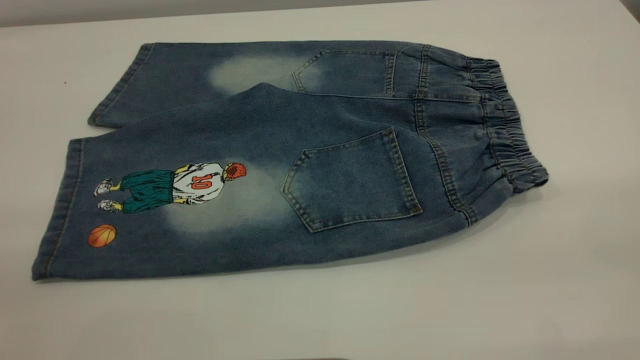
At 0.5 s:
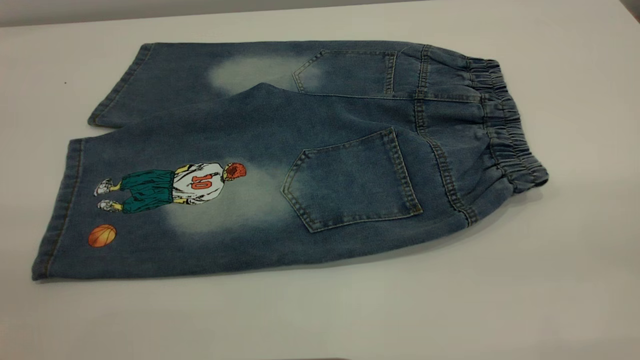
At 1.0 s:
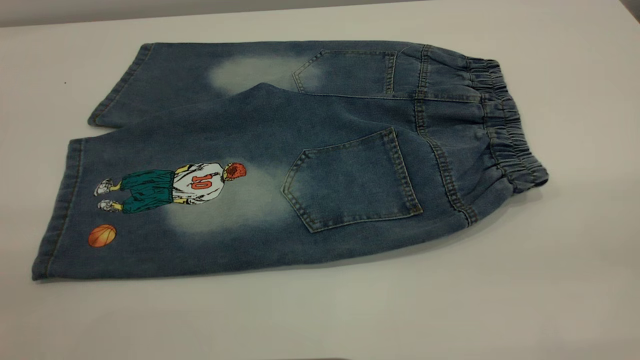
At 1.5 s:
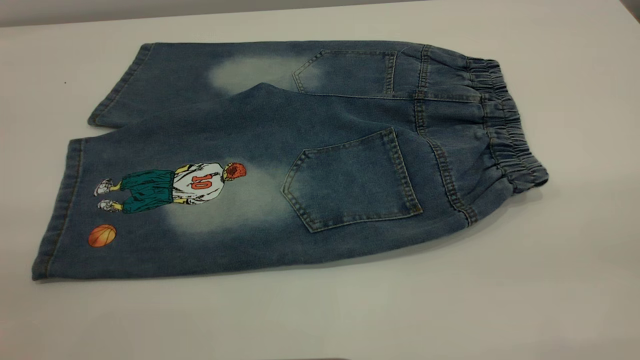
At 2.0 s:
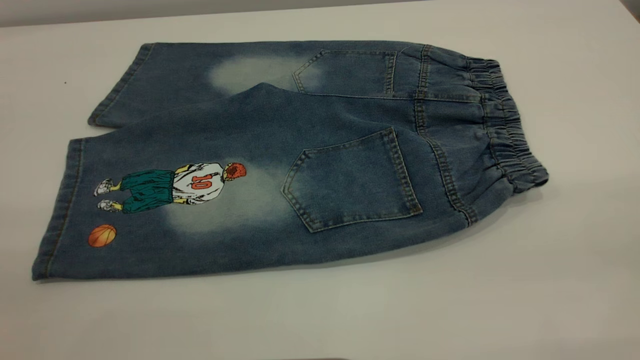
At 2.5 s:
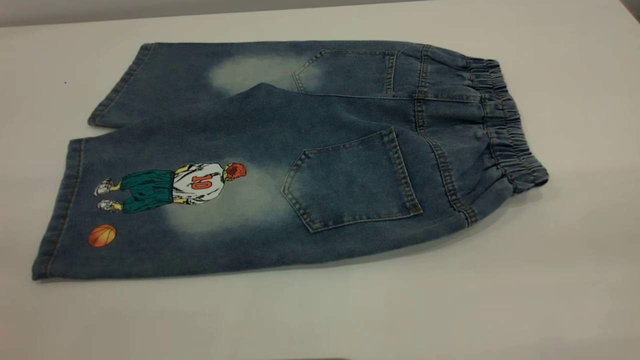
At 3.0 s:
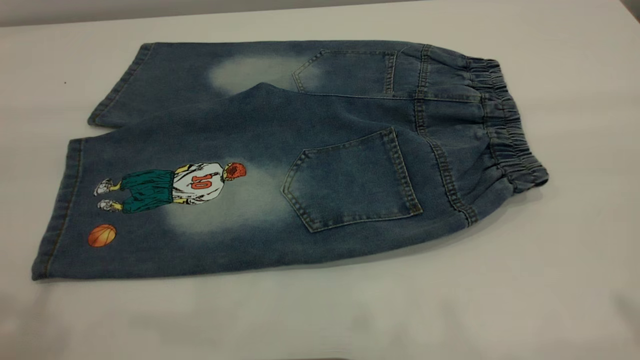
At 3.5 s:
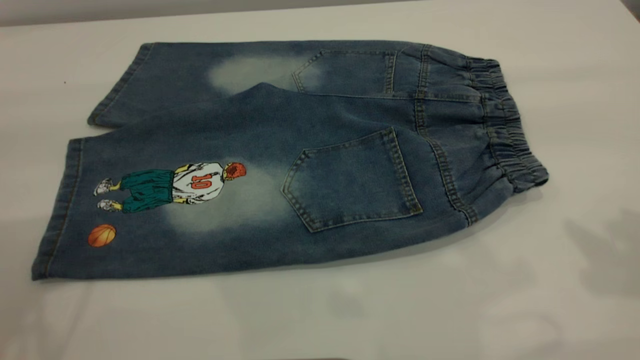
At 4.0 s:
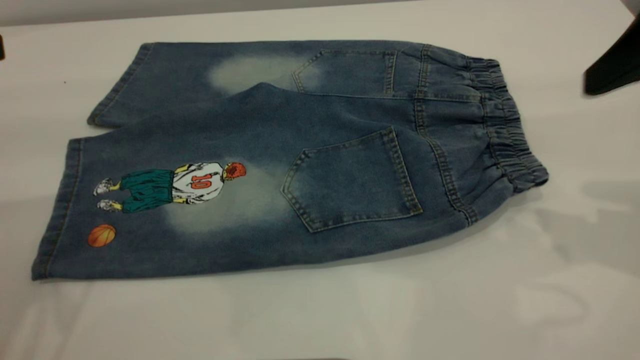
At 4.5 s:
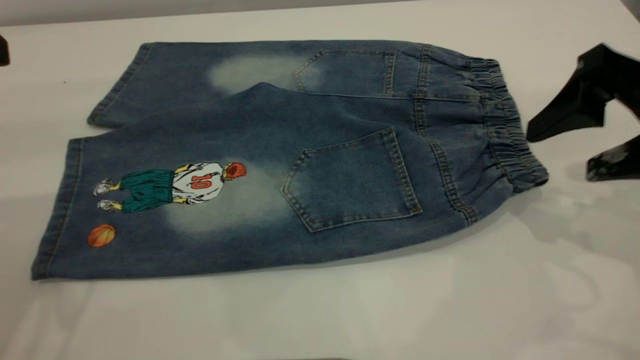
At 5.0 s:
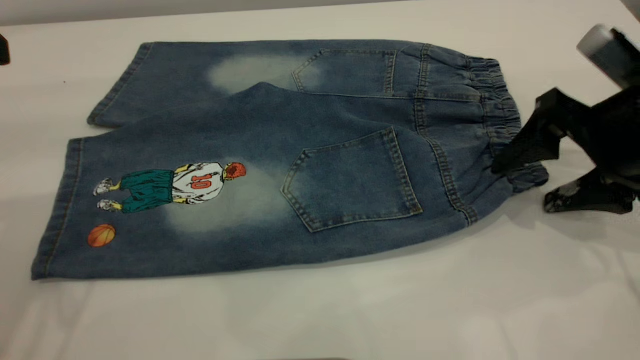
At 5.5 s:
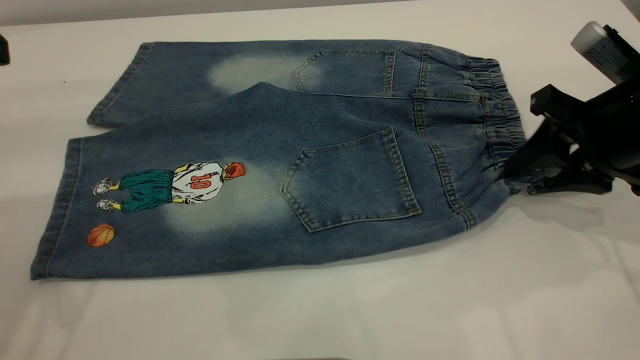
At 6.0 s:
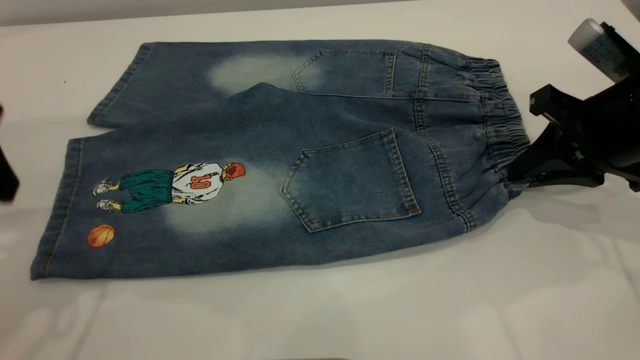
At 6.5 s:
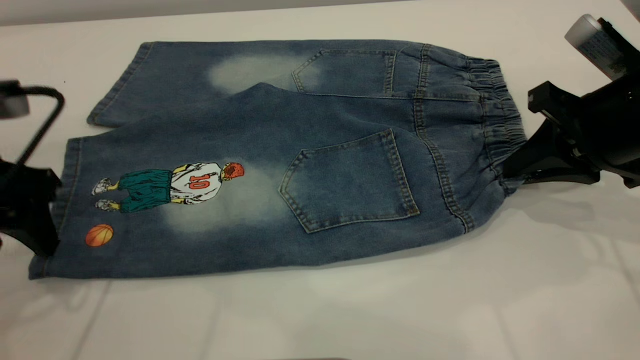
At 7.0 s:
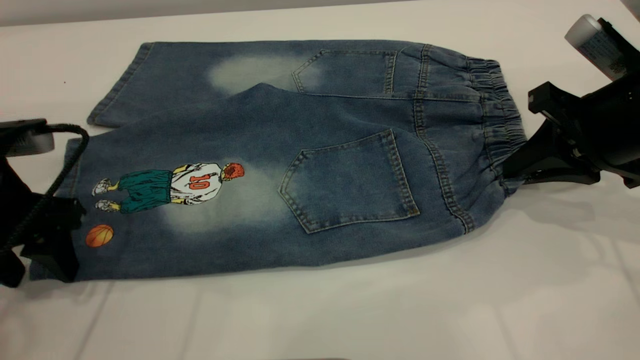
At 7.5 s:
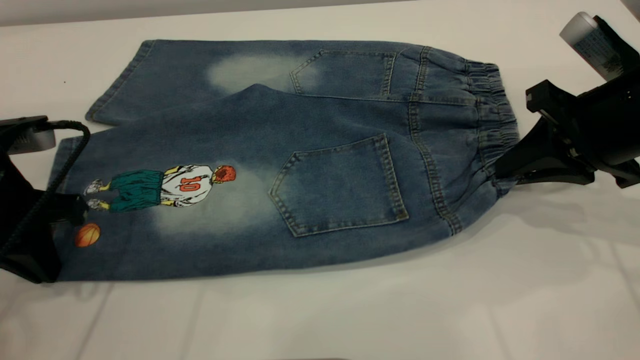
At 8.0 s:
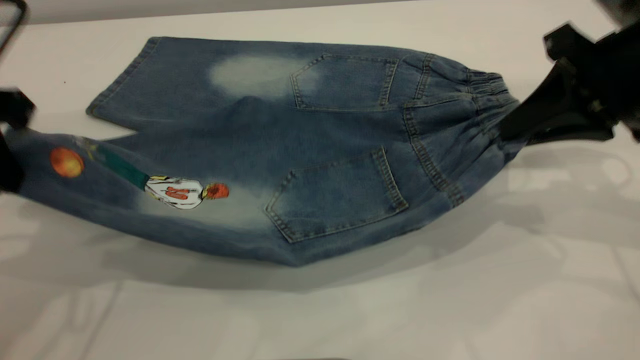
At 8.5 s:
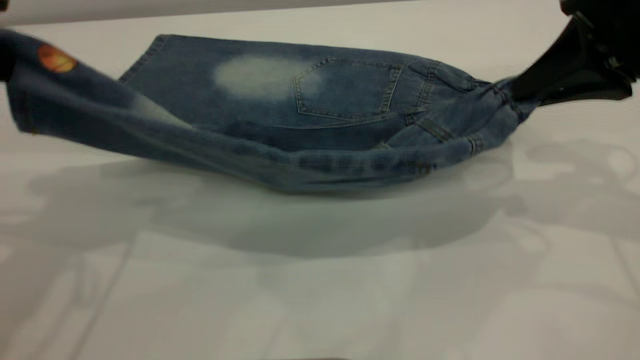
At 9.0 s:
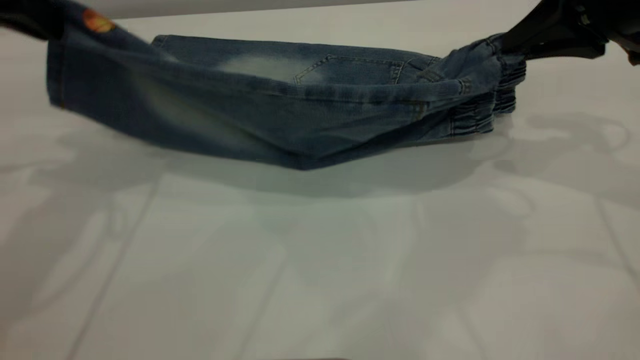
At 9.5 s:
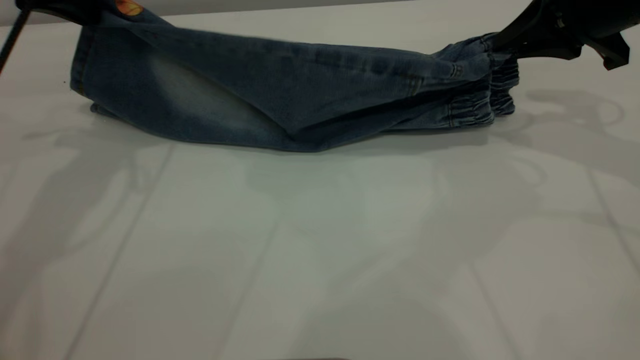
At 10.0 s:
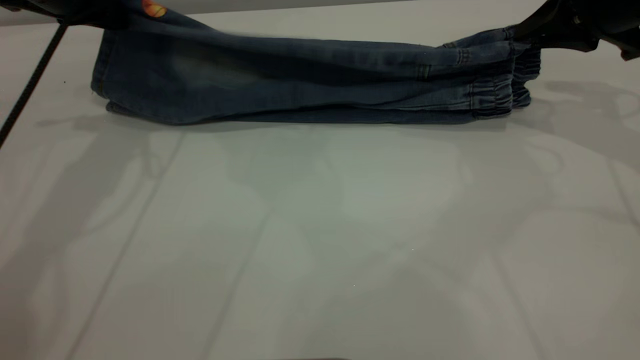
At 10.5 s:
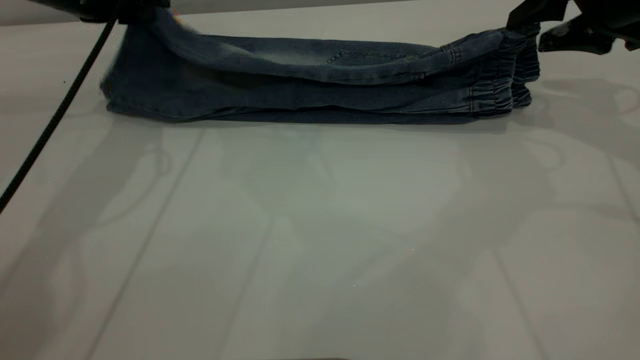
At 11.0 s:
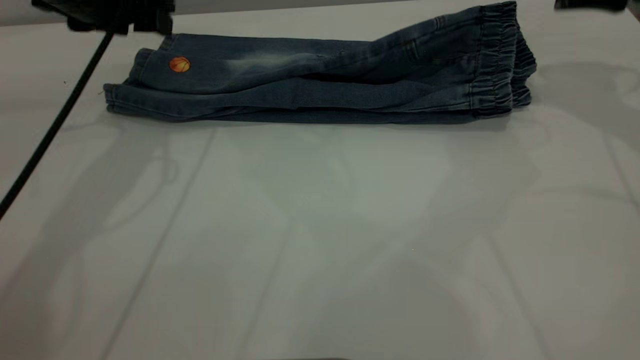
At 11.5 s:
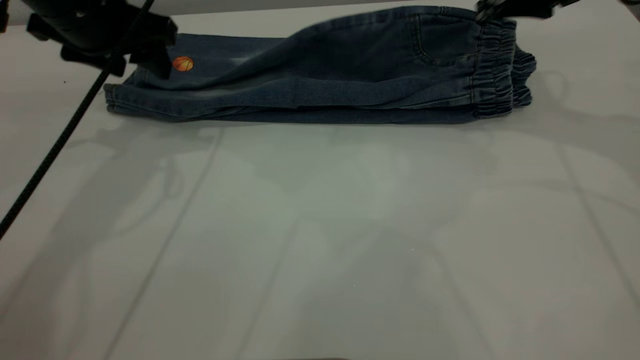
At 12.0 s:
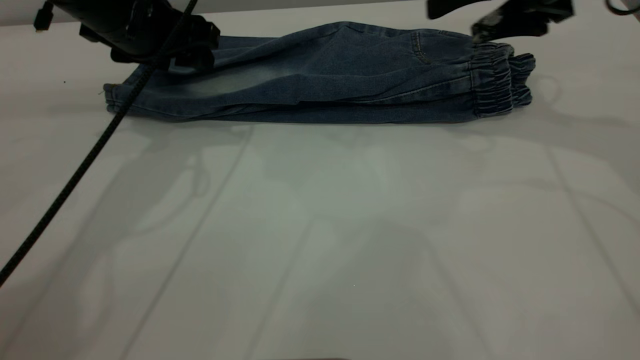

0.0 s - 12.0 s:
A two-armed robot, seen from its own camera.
0.0 s - 2.0 s: The two grippers keep their place.
2.0 s - 4.0 s: The right gripper moves forward and downward, some 25 cm.
4.0 s - 6.0 s: The right gripper shifts roughly 15 cm downward and forward, and closes.
6.0 s - 8.0 s: The right gripper goes approximately 5 cm upward. The left gripper moves roughly 10 cm downward and comes back, and closes its fingers.
8.0 s - 10.0 s: The right gripper goes some 10 cm forward; the left gripper shifts some 20 cm forward.
10.0 s - 12.0 s: The right gripper moves to the left, roughly 5 cm, and opens up. The left gripper heads to the right, covering approximately 5 cm, and opens.

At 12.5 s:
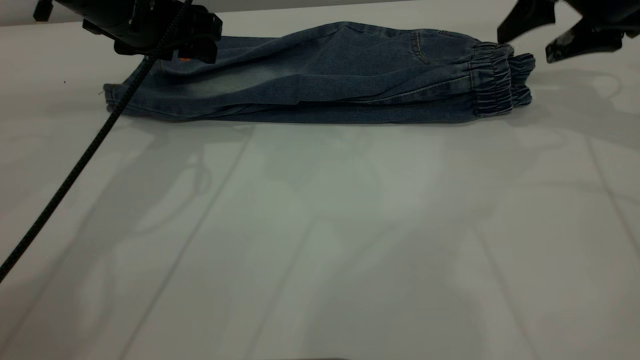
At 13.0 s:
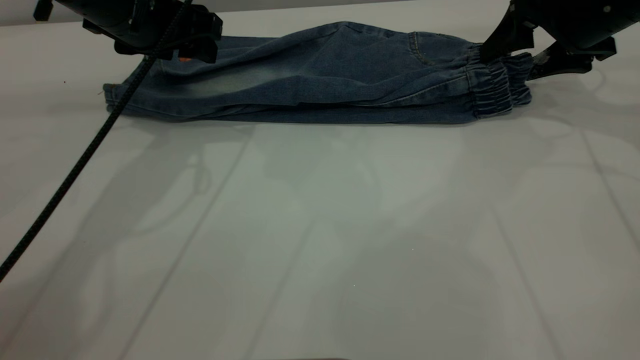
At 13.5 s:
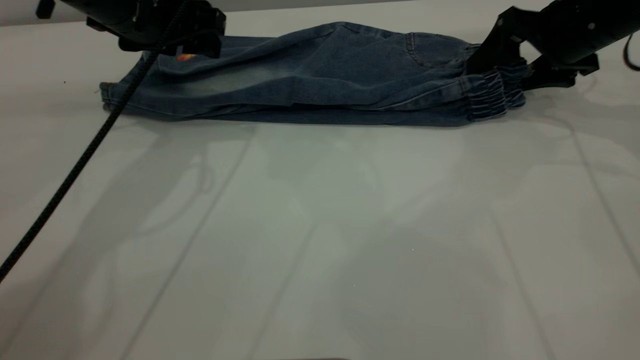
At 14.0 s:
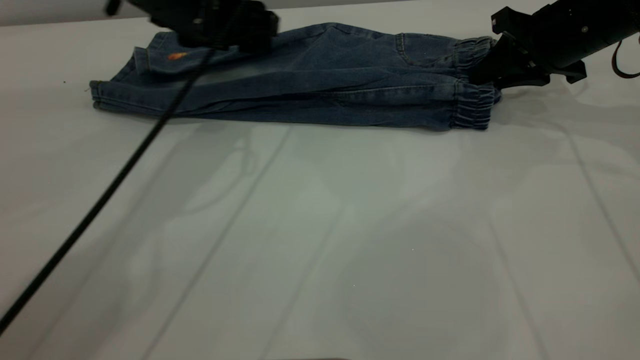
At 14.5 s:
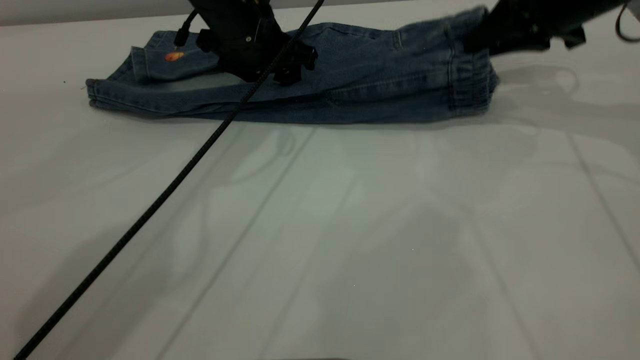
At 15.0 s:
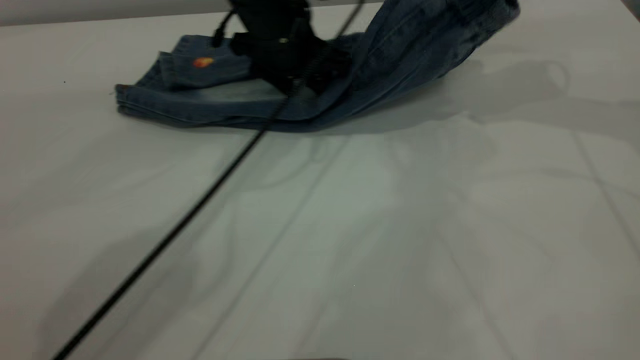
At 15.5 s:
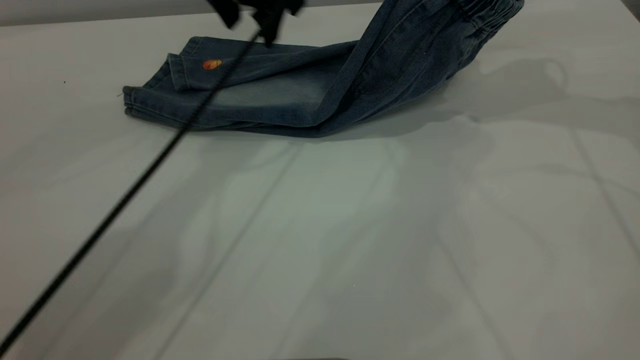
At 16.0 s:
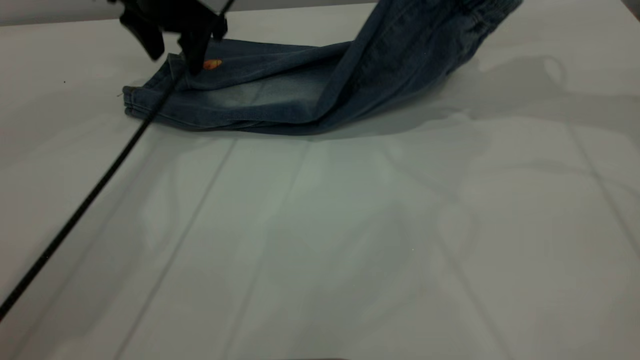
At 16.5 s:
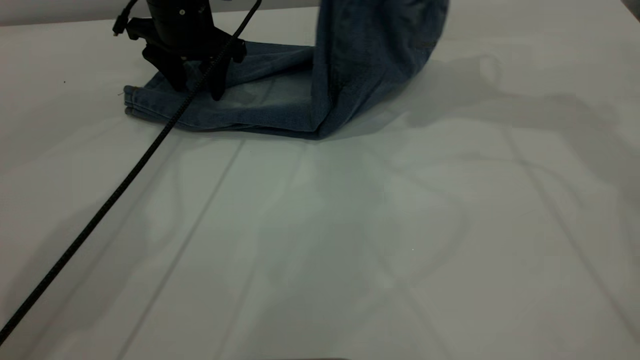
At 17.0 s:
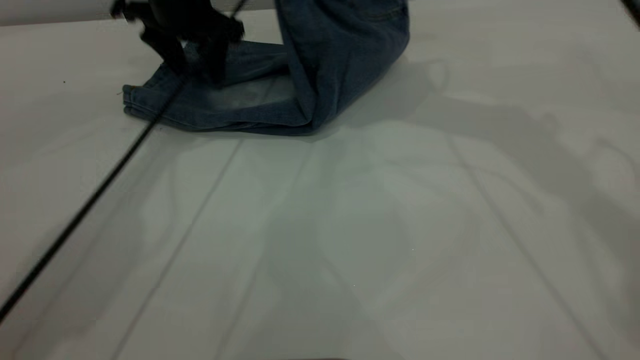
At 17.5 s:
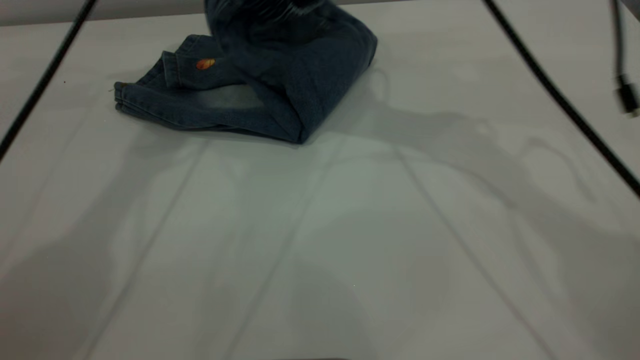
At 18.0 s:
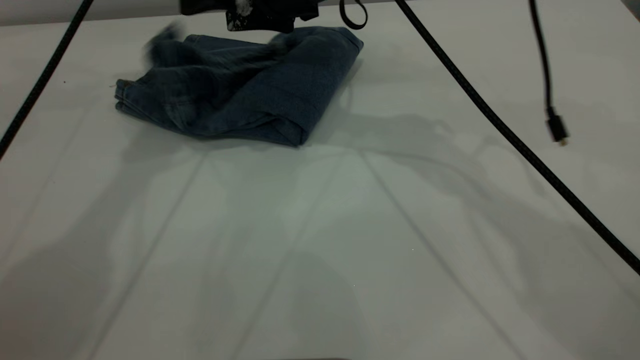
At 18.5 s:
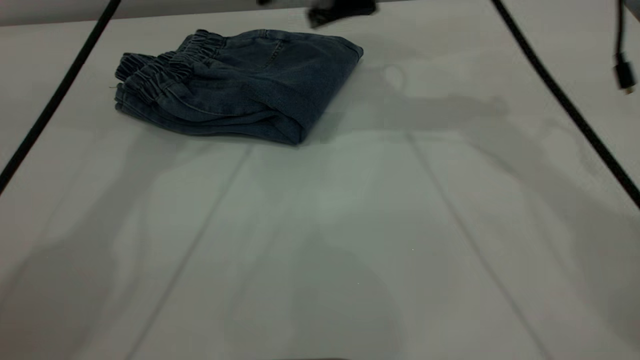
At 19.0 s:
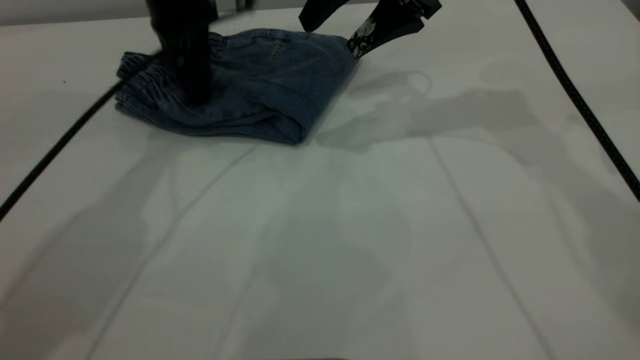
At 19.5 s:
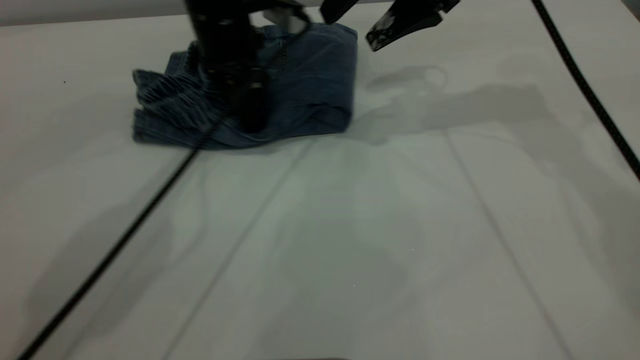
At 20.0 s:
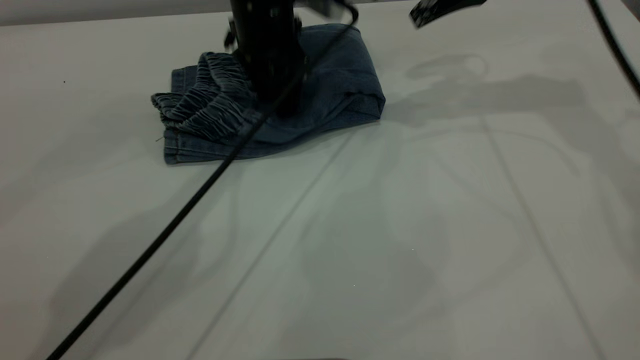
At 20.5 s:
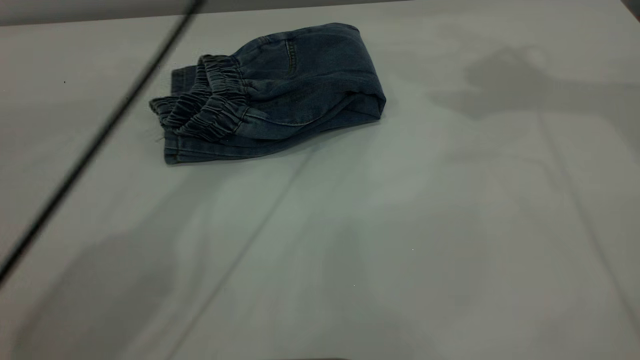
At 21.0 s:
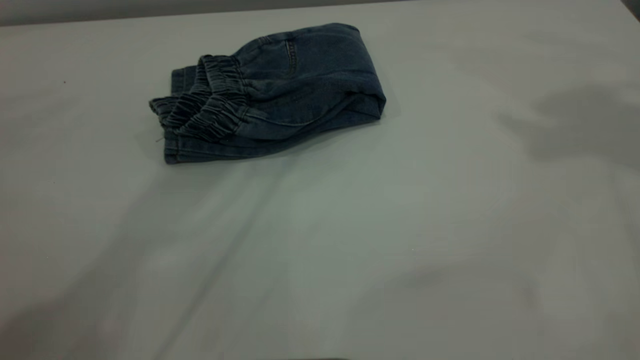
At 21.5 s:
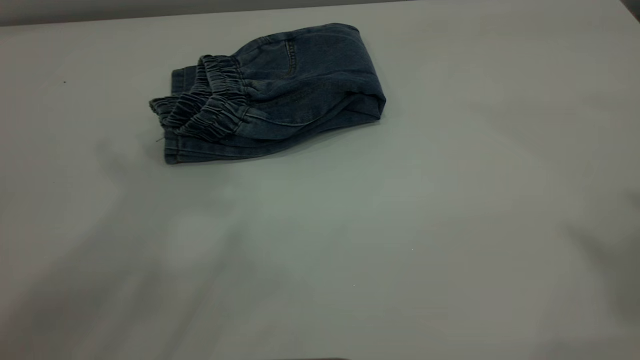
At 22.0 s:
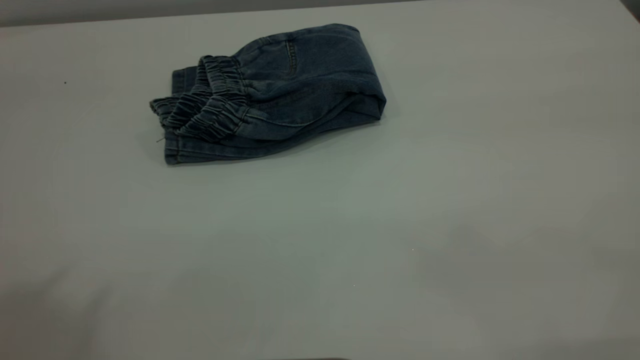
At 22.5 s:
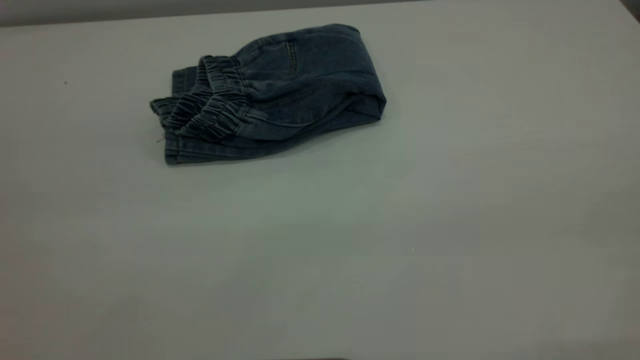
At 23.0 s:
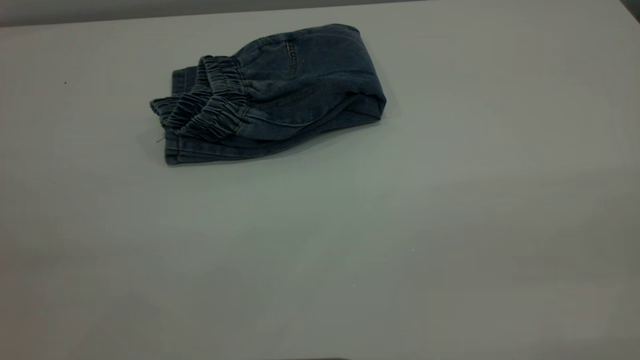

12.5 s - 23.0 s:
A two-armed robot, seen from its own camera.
Step, 12.5 s - 18.0 s: Fold your pants from right to left.
12.5 s - 14.5 s: The left gripper travels to the right, forward and downward by some 10 cm, while the right gripper closes up.
14.5 s - 16.5 s: The right gripper goes about 15 cm upward and to the left, while the left gripper shifts about 5 cm to the left.
16.5 s - 19.0 s: The left gripper goes upward and returns, some 20 cm each way. Meanwhile the right gripper goes roughly 10 cm downward and to the left, and opens.
19.0 s - 21.0 s: The left gripper is displaced upward by about 35 cm, while the right gripper moves upward and to the right, roughly 35 cm.
